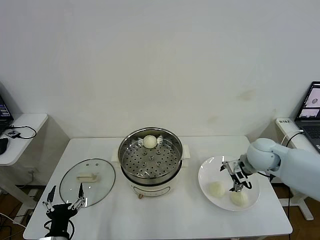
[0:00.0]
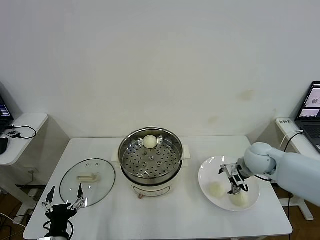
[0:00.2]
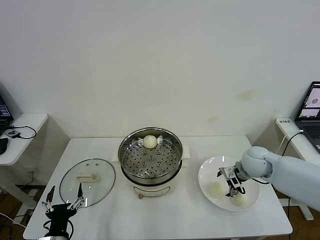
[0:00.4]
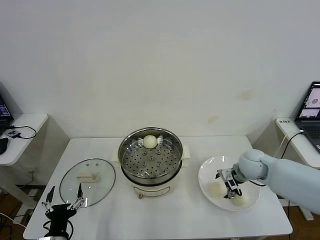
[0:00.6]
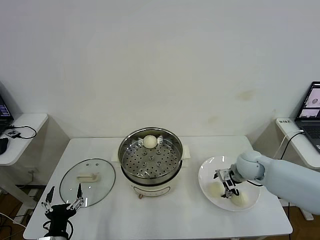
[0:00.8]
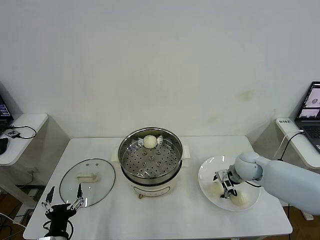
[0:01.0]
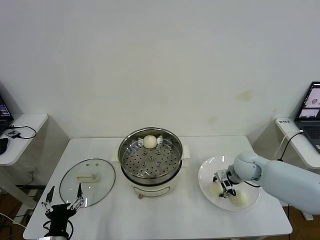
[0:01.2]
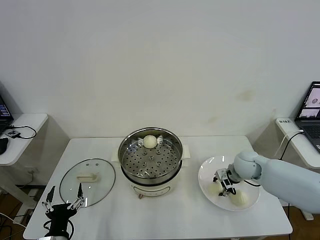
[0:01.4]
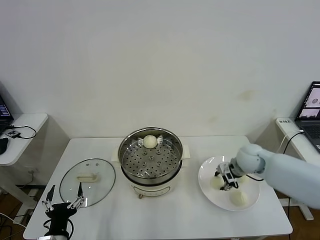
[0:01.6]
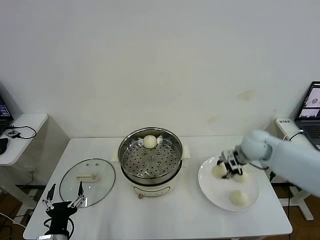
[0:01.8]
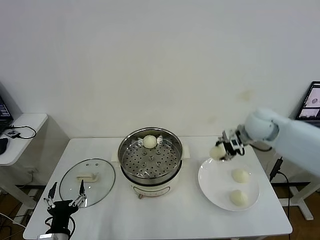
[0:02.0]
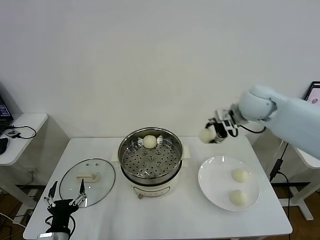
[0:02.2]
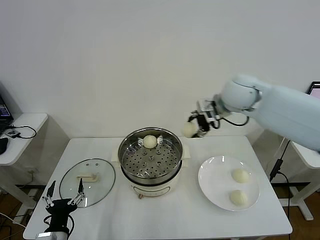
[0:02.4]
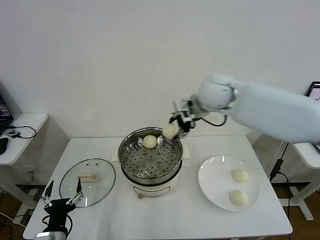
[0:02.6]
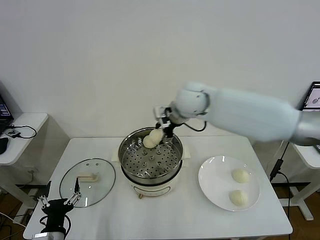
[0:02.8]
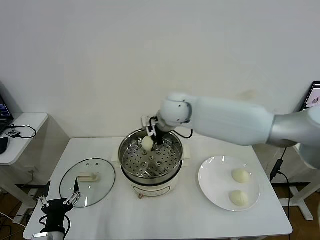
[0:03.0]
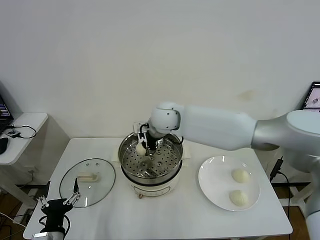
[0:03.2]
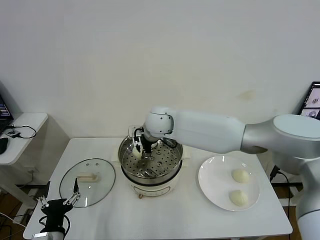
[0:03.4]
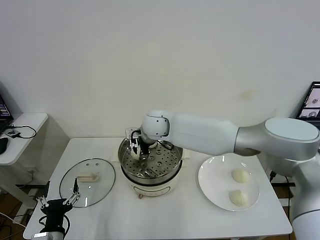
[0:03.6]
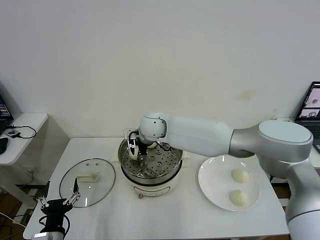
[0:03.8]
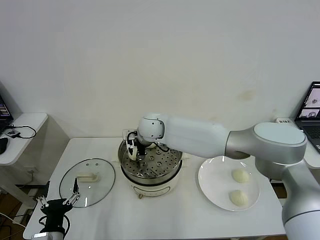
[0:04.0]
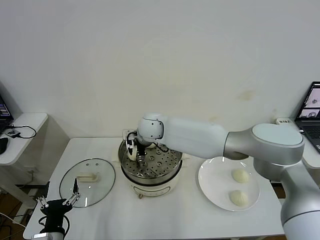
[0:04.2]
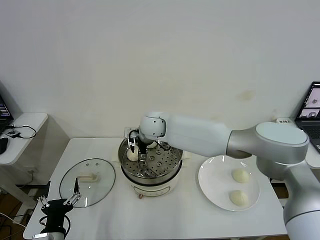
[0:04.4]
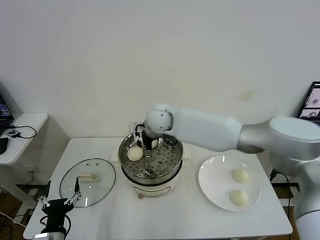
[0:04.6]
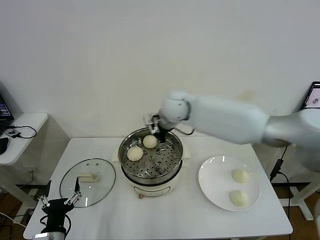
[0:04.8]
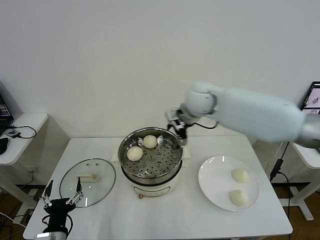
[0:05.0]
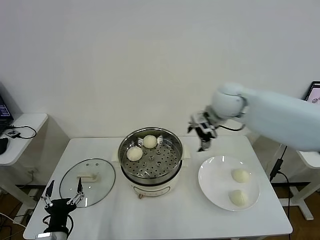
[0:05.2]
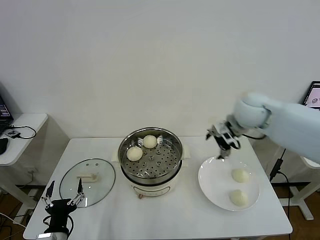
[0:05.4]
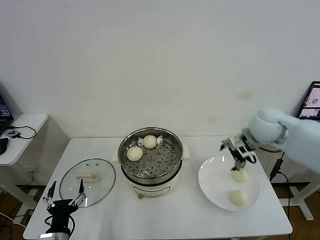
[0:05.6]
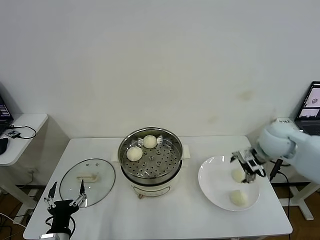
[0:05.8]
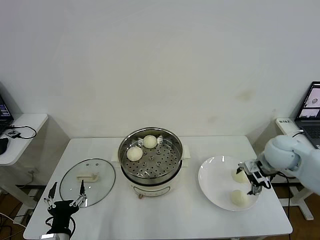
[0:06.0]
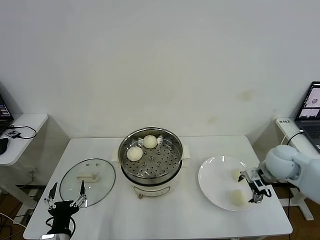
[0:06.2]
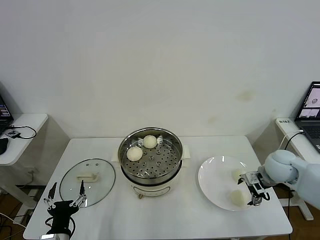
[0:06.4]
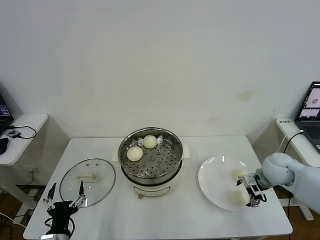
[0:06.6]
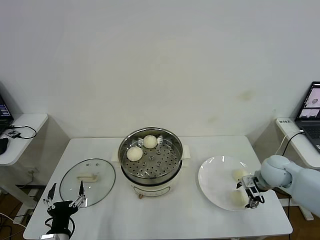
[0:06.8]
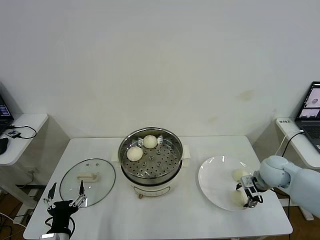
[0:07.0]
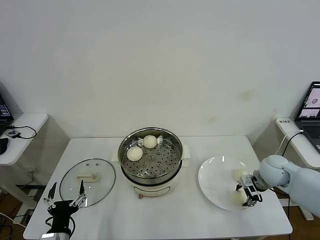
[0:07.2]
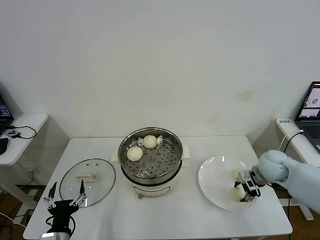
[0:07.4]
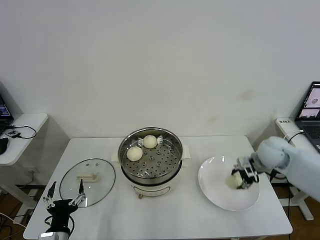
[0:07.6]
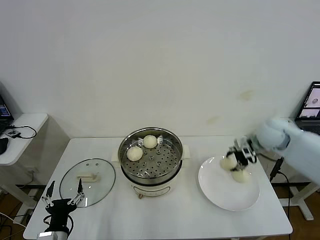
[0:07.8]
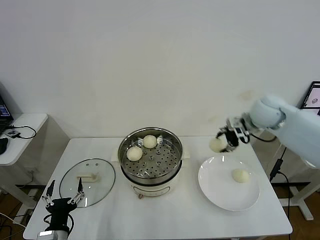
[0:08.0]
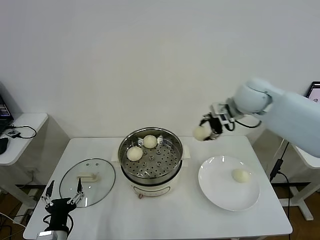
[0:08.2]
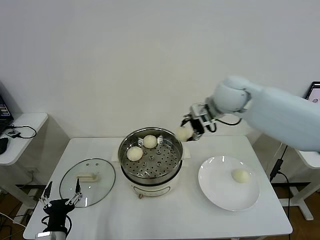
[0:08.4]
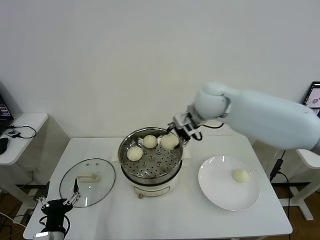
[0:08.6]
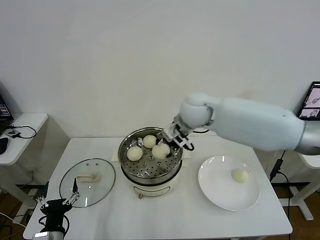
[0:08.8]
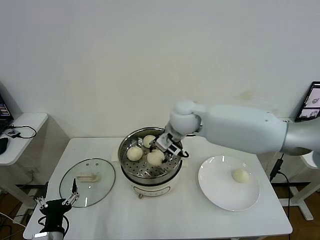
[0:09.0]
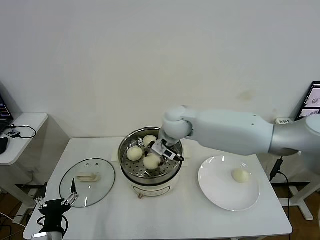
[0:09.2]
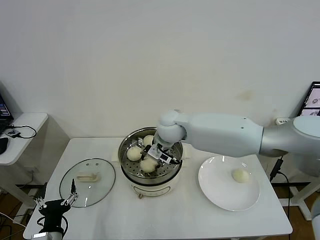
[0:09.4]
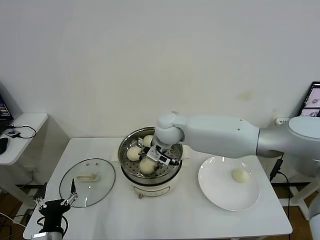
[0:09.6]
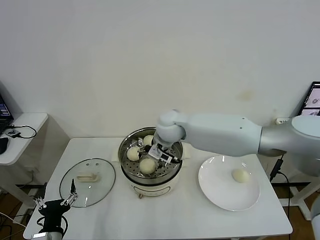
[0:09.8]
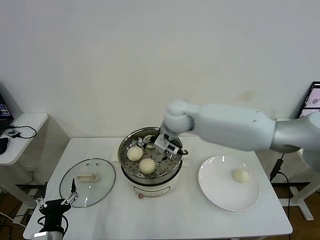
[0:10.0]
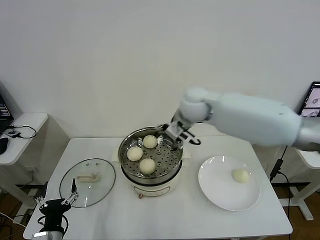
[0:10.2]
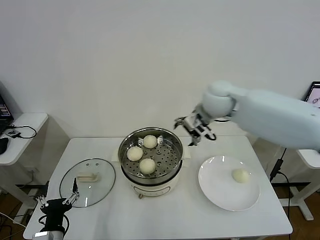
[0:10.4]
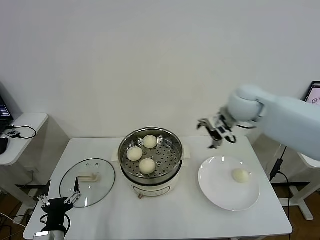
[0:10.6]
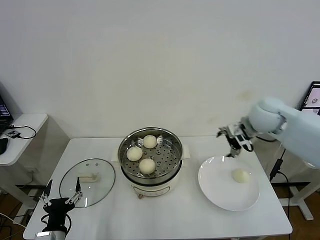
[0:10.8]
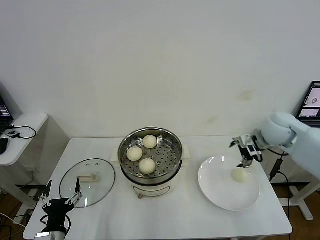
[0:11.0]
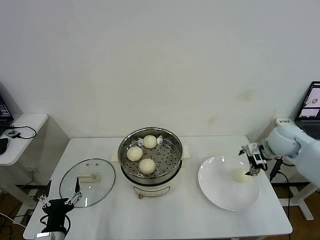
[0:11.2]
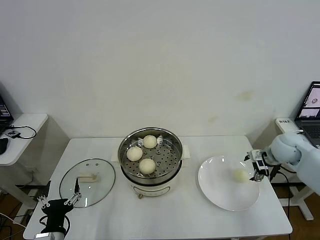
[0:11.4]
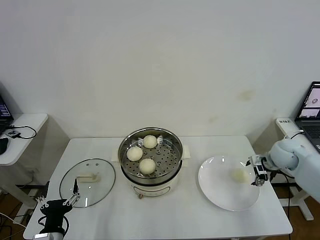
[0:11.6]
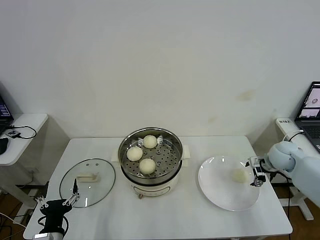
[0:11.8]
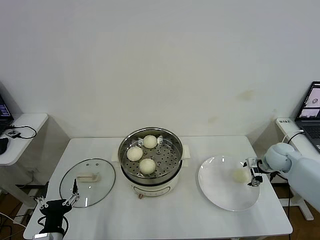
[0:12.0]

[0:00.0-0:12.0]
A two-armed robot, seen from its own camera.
Step, 0:01.4 to 0:04.4: Place the baozi on the steamer with right gripper.
Step, 0:04.6 to 0:07.0: Grasp the baozi in the plate with right gripper.
Step, 0:07.2 to 0:09.6: Place the baozi on the steamer with right gripper.
0:00.0 to 0:01.6: The right gripper closes up.
0:01.6 to 0:03.0: The right gripper is displaced to the left and upward by approximately 30 cm.
0:03.0 to 0:04.4: The right gripper ends up approximately 5 cm from where it was, and opens up.
0:04.4 to 0:06.0: The right gripper travels to the right by approximately 40 cm.
0:06.0 to 0:07.6: The right gripper reaches approximately 10 cm downward, then returns, and closes.
0:07.6 to 0:09.0: The right gripper shifts about 30 cm to the left.
0:09.0 to 0:10.4: The right gripper heads to the right and upward, covering some 15 cm, and opens up.
0:10.4 to 0:12.0: The right gripper moves to the right and downward, some 35 cm.

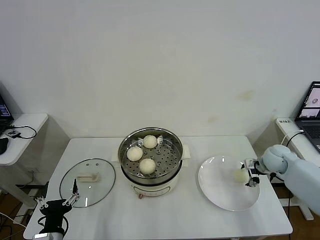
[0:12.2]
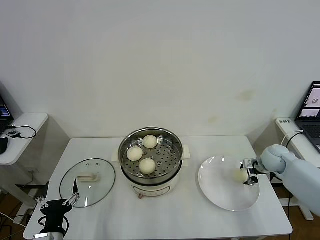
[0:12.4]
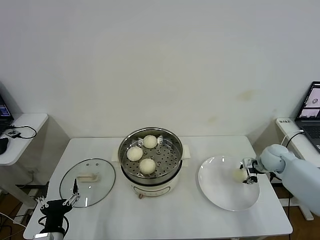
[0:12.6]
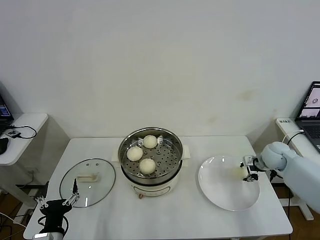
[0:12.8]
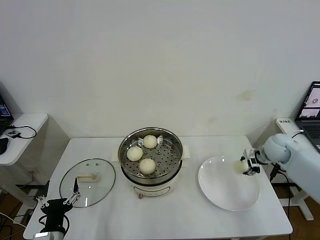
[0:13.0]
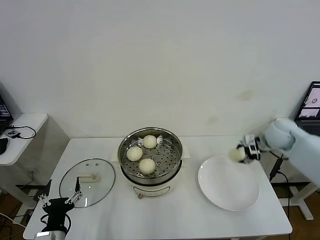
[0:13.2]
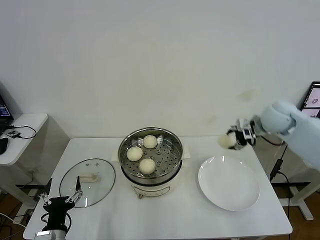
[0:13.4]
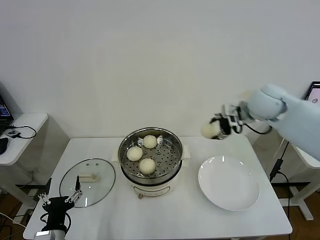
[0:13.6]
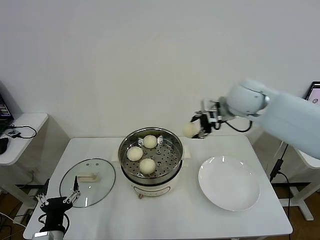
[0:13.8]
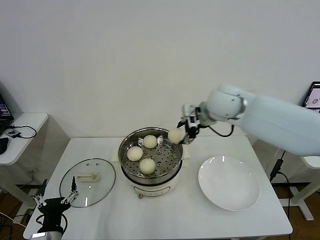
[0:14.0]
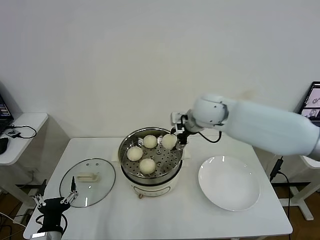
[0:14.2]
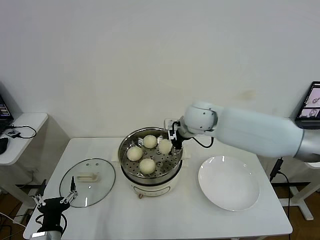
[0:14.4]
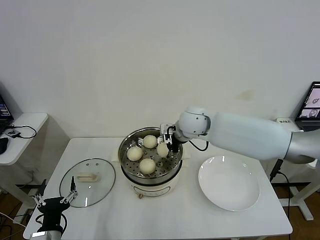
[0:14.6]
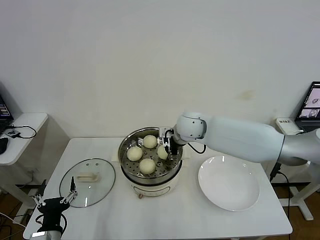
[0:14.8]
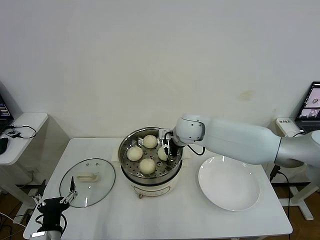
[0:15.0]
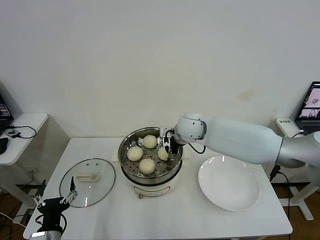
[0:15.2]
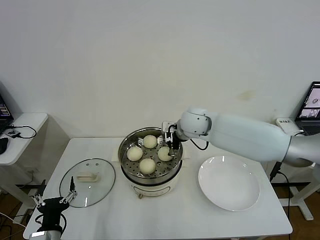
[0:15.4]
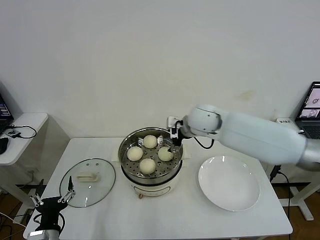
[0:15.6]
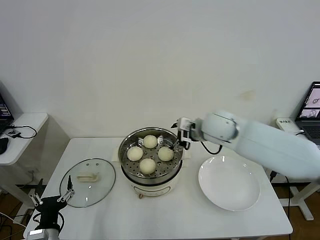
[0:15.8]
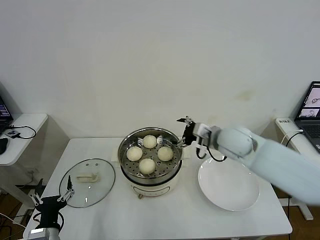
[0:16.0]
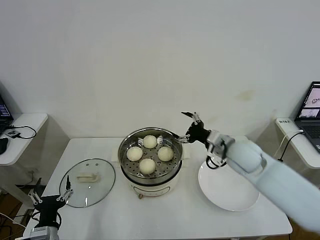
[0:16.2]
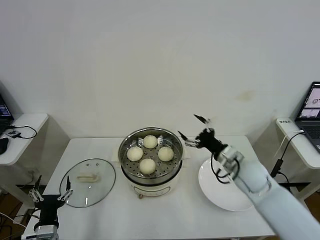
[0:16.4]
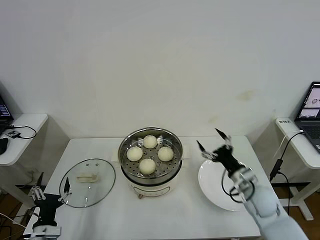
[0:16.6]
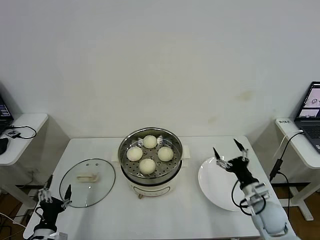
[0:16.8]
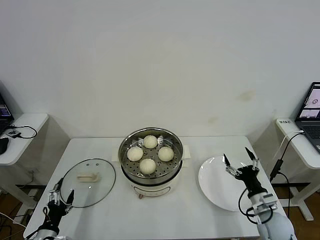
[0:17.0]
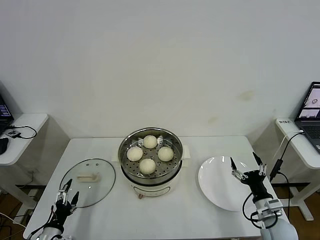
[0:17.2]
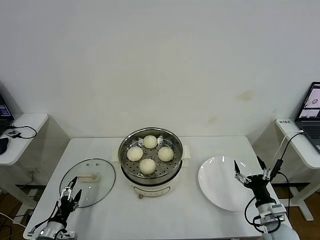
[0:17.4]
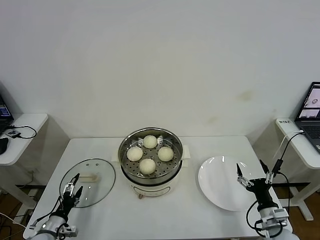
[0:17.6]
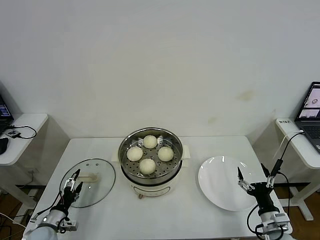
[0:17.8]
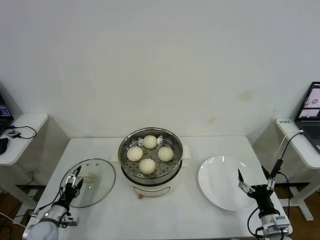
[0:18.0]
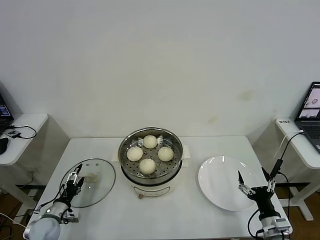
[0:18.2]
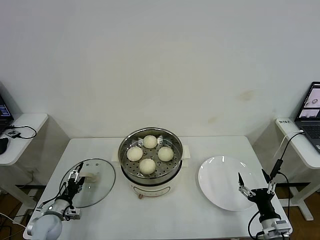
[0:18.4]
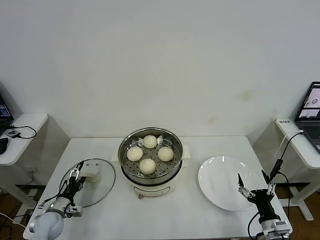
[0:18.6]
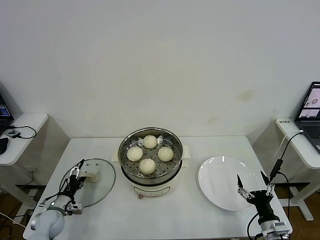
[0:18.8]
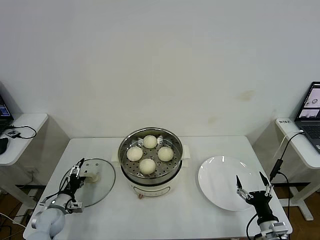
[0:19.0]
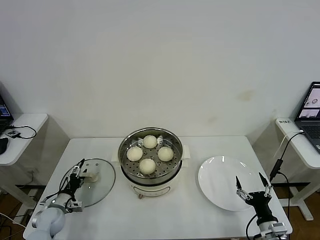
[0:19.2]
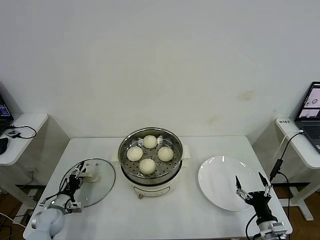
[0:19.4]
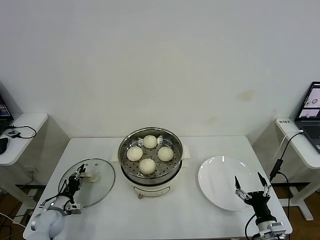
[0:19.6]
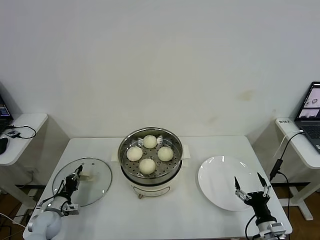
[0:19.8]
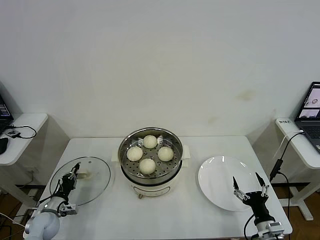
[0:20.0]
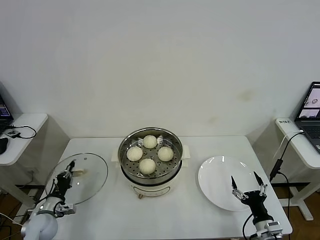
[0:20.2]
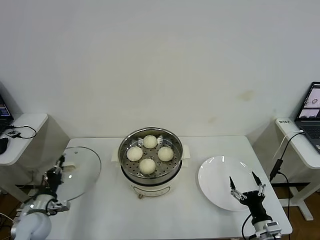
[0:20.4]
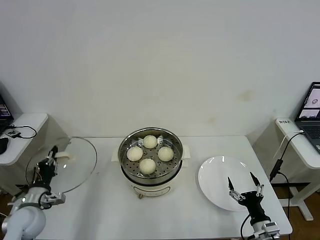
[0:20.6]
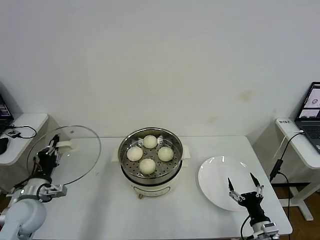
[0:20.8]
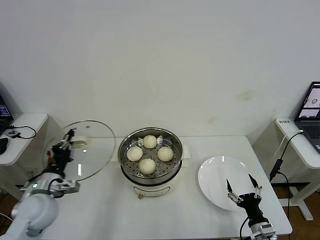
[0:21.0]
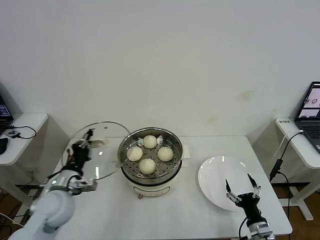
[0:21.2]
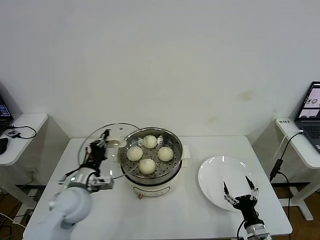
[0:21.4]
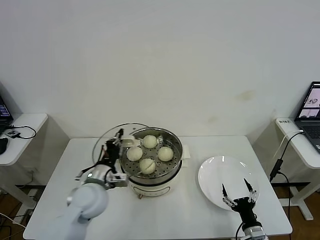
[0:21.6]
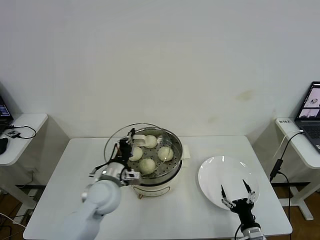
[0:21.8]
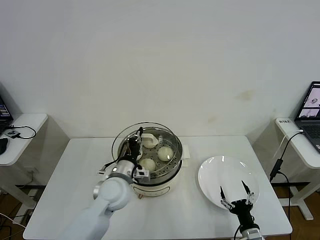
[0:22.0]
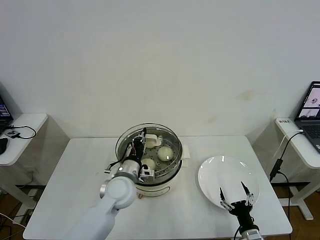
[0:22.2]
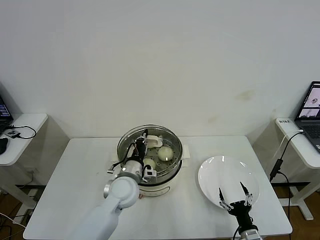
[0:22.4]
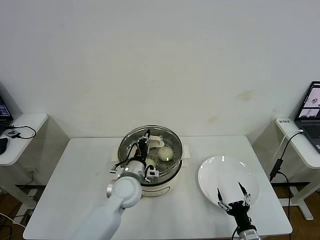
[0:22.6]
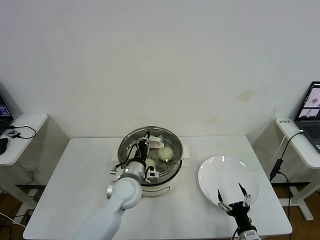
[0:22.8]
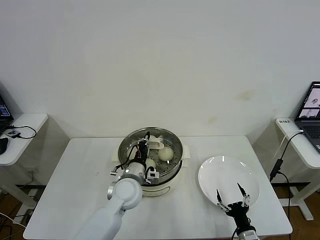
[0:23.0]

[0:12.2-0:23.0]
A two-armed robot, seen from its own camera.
Step, 0:12.6 to 0:15.4: Place the baozi on the steamer with right gripper.
Step, 0:15.6 to 0:20.0: Grasp the pot lid with left gripper.
0:12.2 to 0:13.8: The right gripper goes approximately 35 cm upward and to the left, and closes up.
0:13.8 to 0:15.2: The right gripper shifts approximately 15 cm downward and to the left, and opens its fingers.
0:15.2 to 0:16.8: The left gripper travels to the left and downward by some 10 cm. The right gripper is displaced to the right, backward and downward by some 40 cm.
0:16.8 to 0:18.4: The right gripper is displaced backward by roughly 10 cm, while the left gripper goes about 15 cm forward and downward.
0:18.4 to 0:20.0: The left gripper closes up.
0:20.0 to 0:21.4: The left gripper is displaced upward and to the right by some 25 cm.
0:21.4 to 0:23.0: The left gripper travels to the right by some 15 cm.
